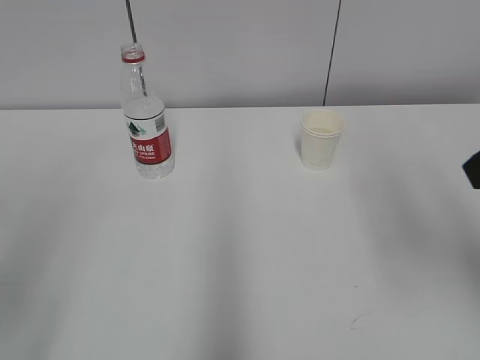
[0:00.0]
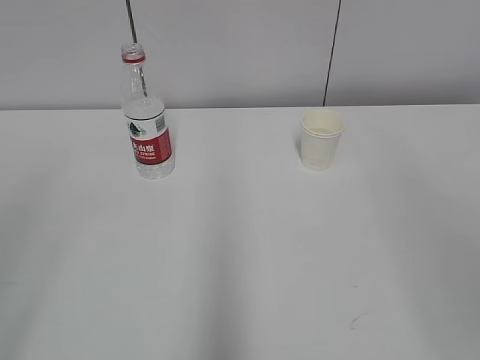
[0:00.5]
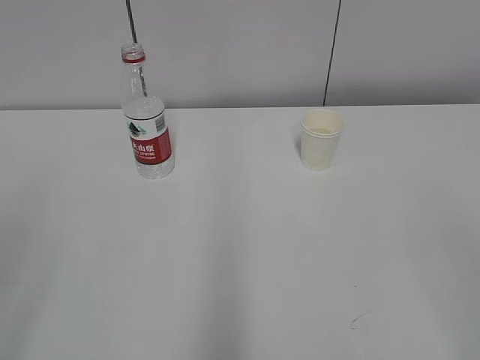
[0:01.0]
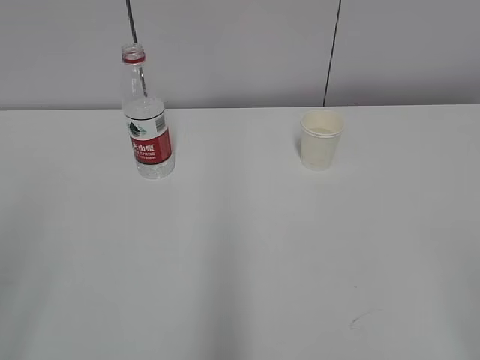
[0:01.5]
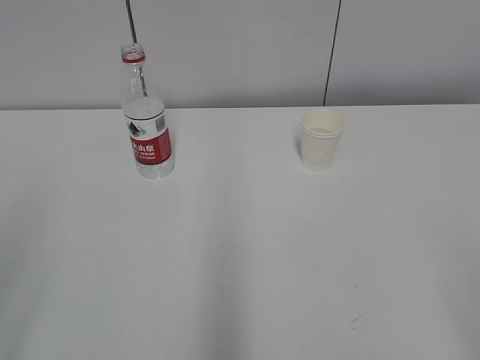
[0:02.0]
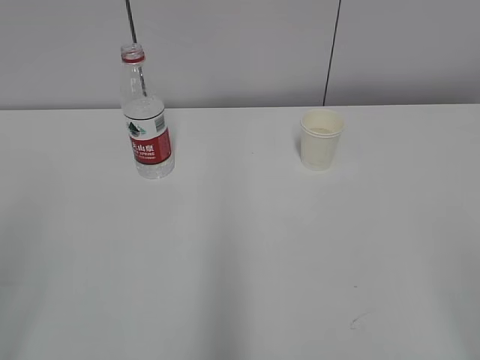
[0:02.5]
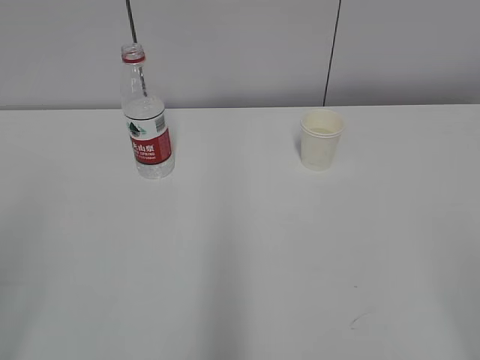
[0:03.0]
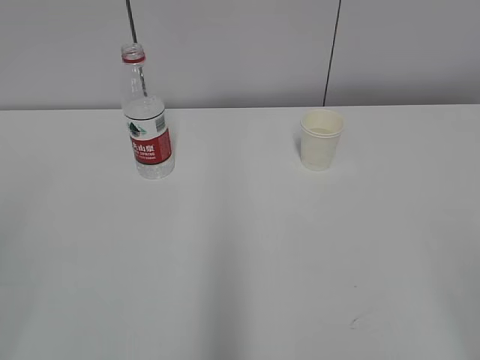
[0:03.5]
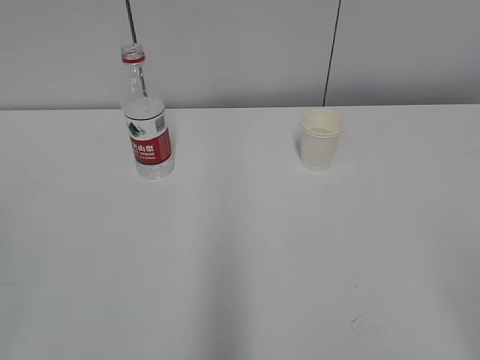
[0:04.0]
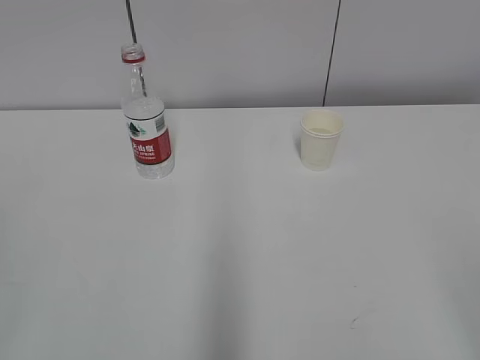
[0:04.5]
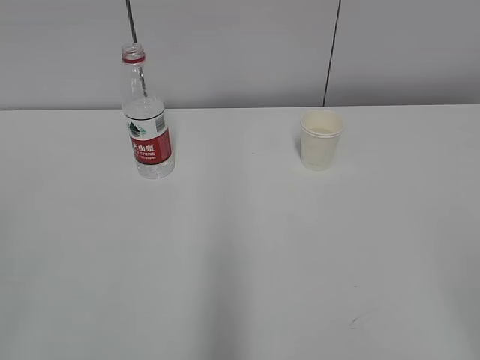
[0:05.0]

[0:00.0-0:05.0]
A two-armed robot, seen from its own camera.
0:00.0 to 0:02.5: The right gripper travels backward and downward by roughly 20 cm.

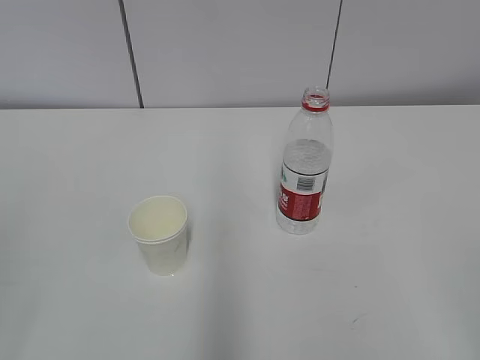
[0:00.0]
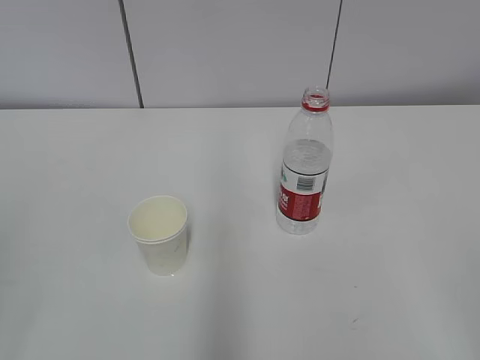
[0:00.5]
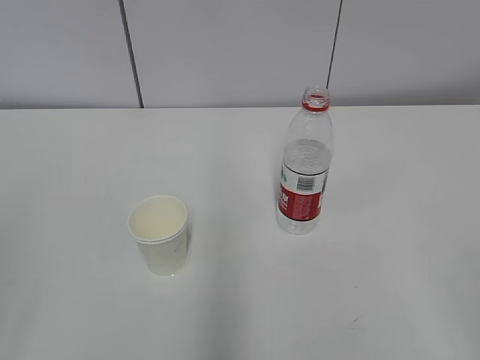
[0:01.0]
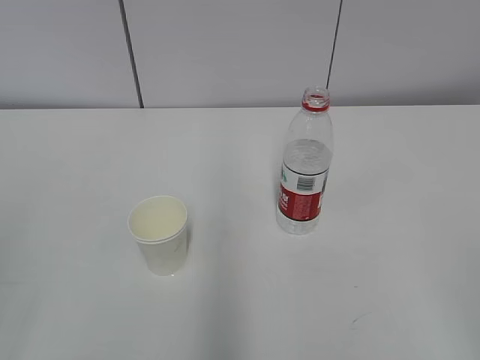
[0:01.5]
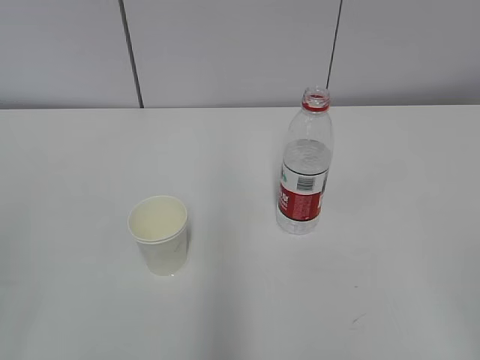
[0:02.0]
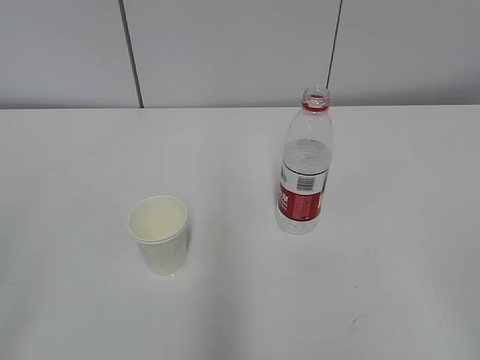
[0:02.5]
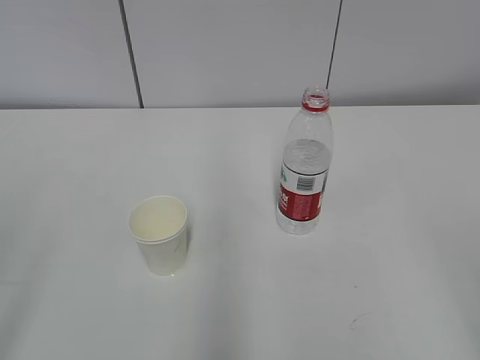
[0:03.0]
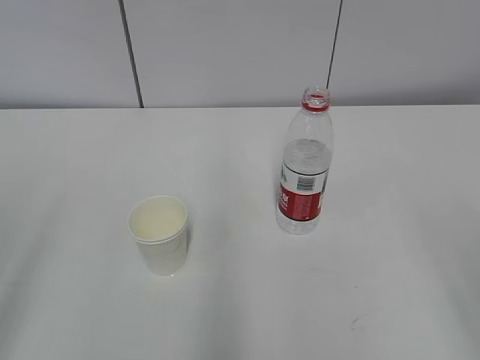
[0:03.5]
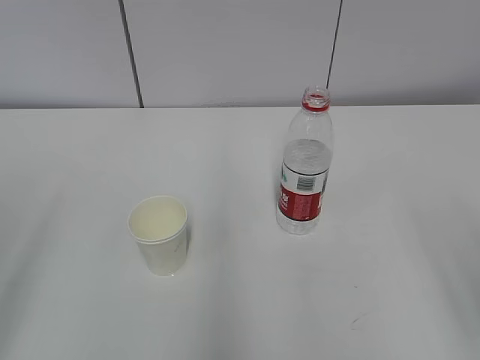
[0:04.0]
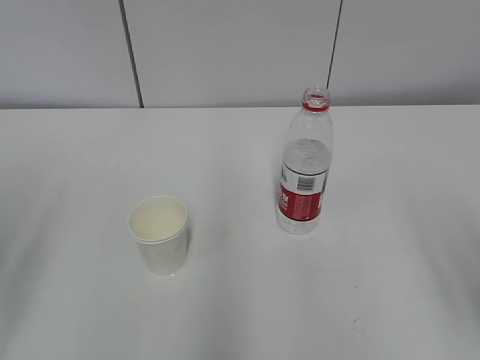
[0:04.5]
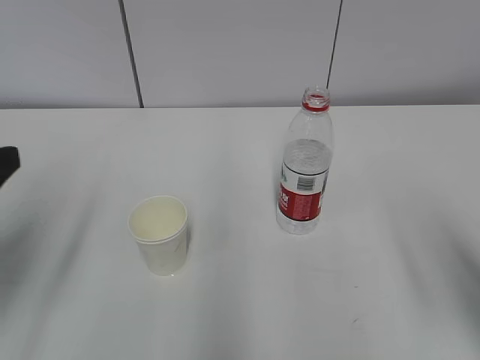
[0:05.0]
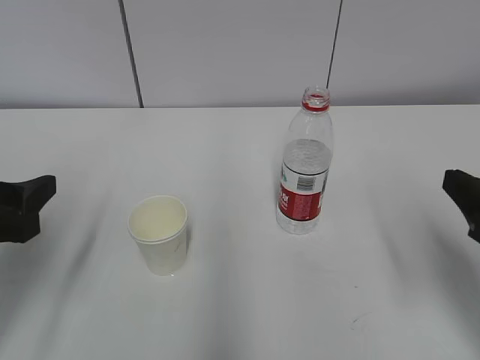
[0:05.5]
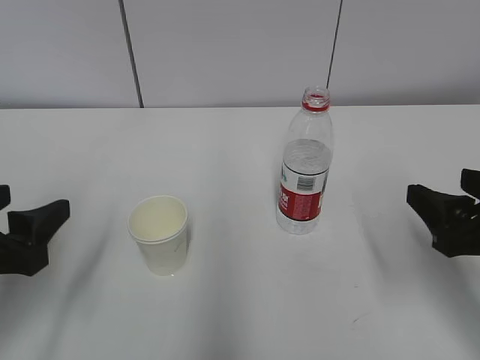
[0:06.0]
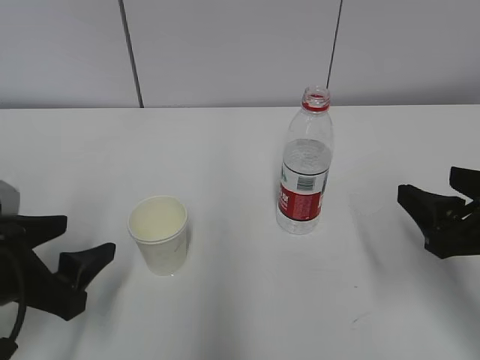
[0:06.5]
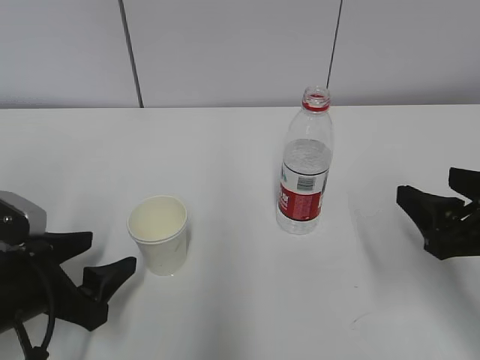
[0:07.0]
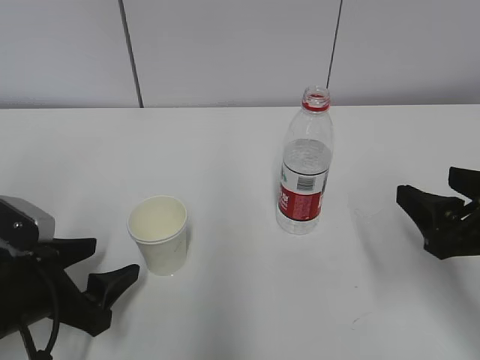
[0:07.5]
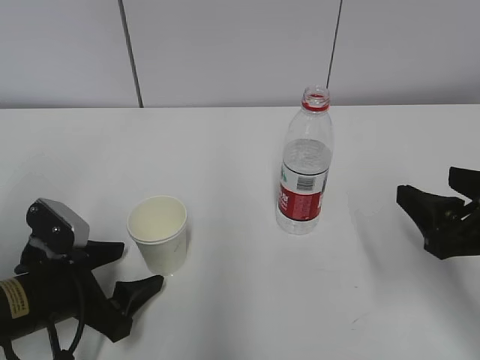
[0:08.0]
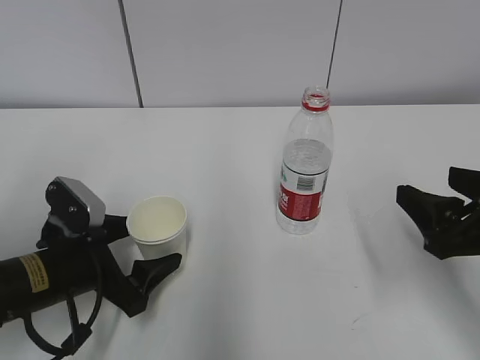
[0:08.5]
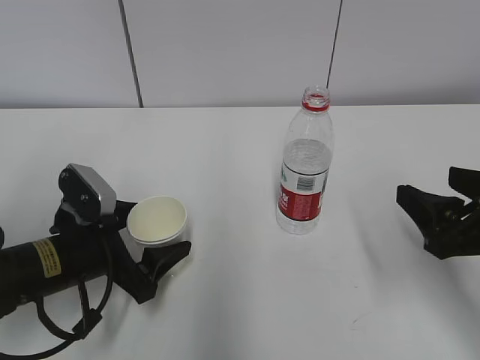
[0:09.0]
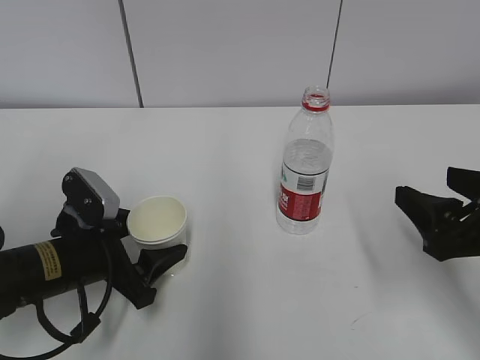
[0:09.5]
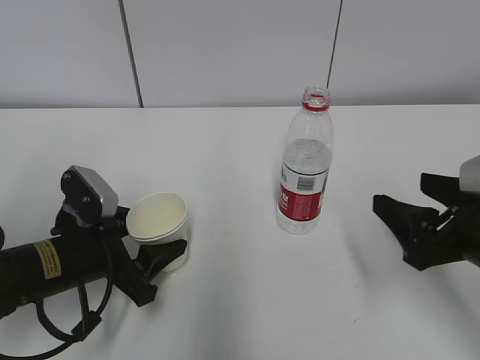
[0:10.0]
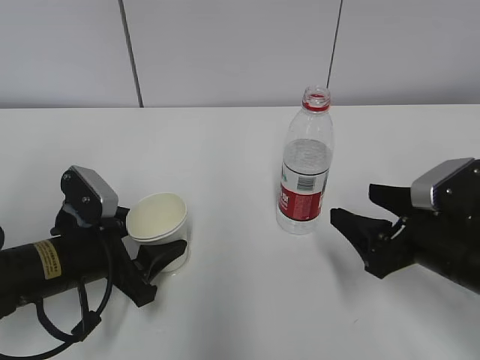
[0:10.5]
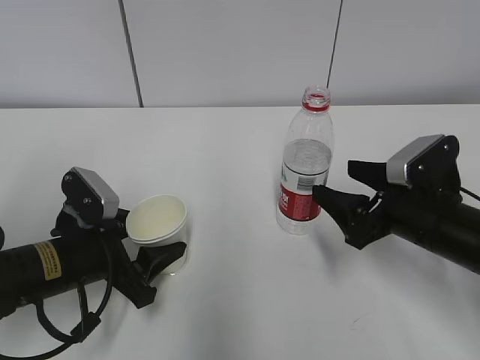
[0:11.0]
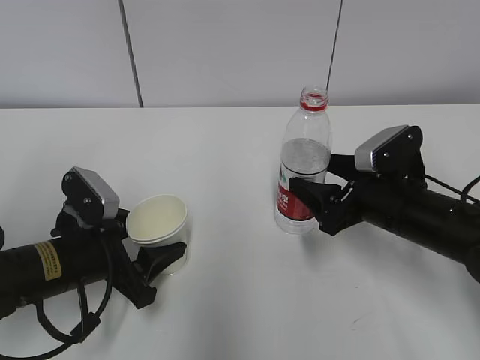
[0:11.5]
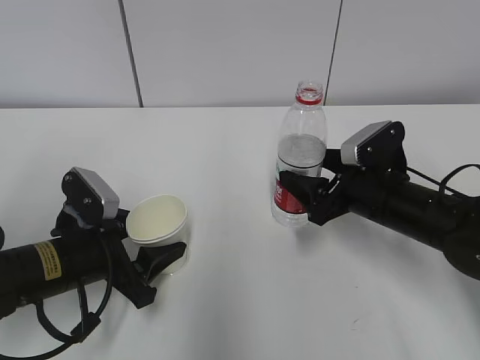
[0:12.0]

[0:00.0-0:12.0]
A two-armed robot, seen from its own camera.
Step, 0:00.0 to 0:07.5: Grab the paper cup with the left hand.
Step, 0:08.0 to 0:10.5: Grab the water bottle with the right hand.
0:04.0 to 0:06.0: The left gripper moves forward, downward and to the right, about 15 cm; the right gripper is displaced forward and downward by approximately 15 cm.
0:06.0 to 0:08.0: The left gripper moves downward, roughly 10 cm.
0:08.0 to 0:10.0: The grippers move only a little.
0:10.0 to 0:12.0: The right gripper moves forward, downward and to the left, about 15 cm.

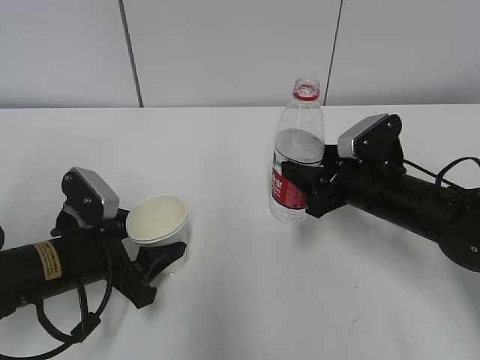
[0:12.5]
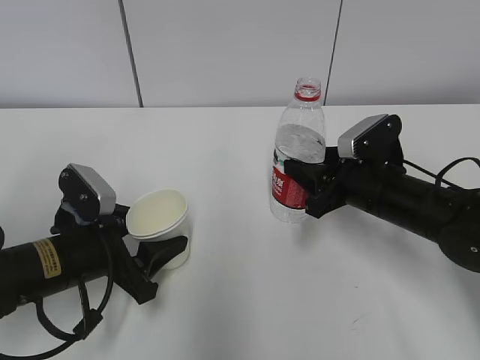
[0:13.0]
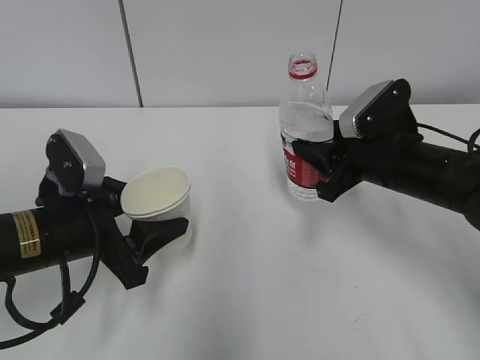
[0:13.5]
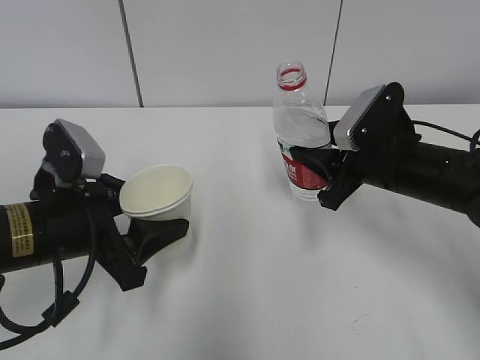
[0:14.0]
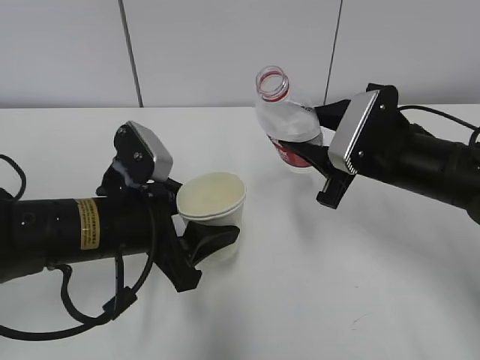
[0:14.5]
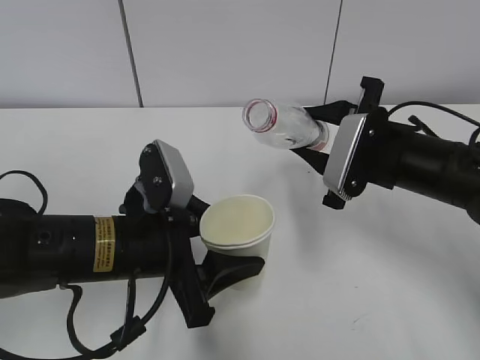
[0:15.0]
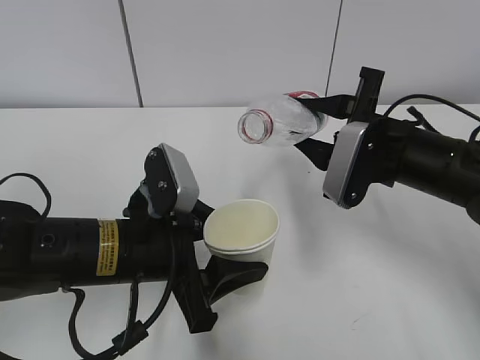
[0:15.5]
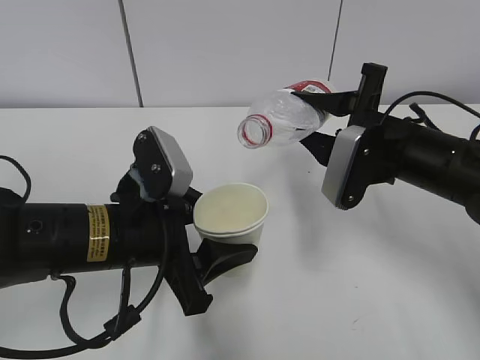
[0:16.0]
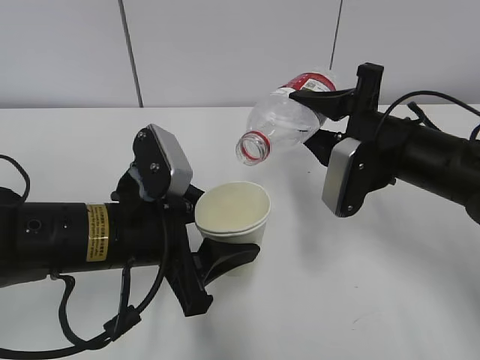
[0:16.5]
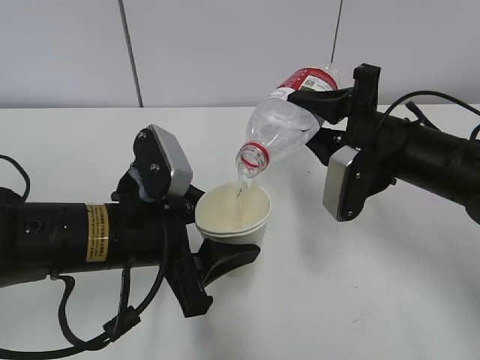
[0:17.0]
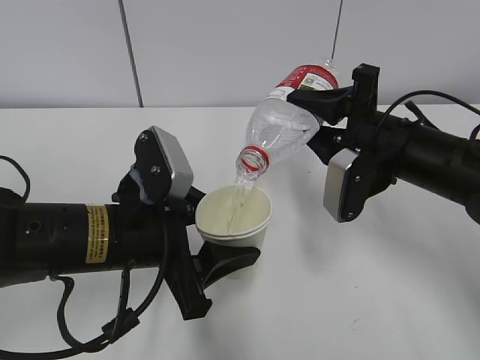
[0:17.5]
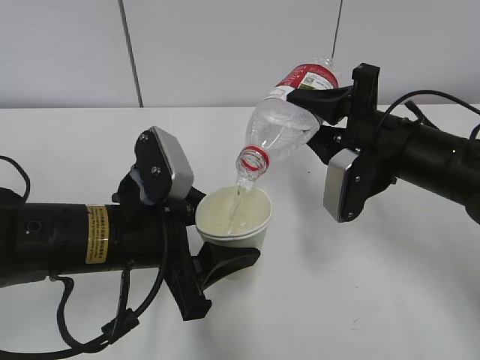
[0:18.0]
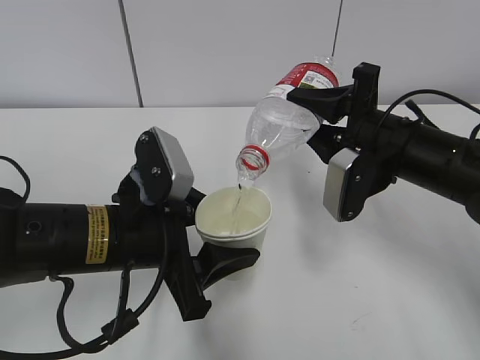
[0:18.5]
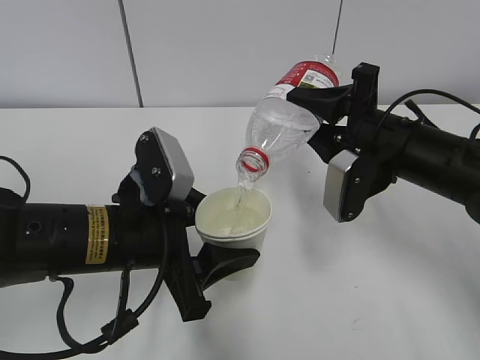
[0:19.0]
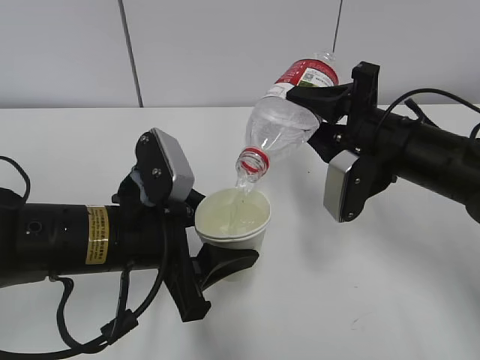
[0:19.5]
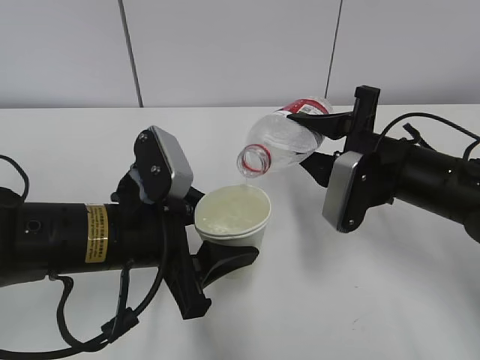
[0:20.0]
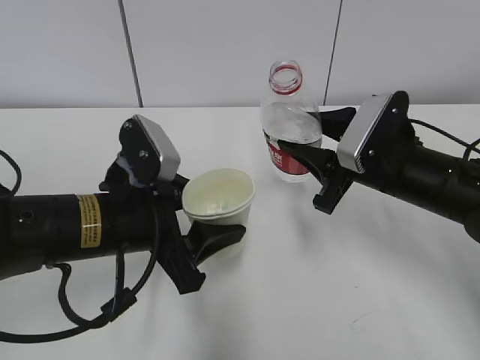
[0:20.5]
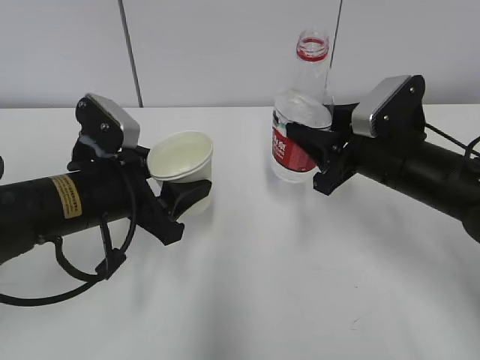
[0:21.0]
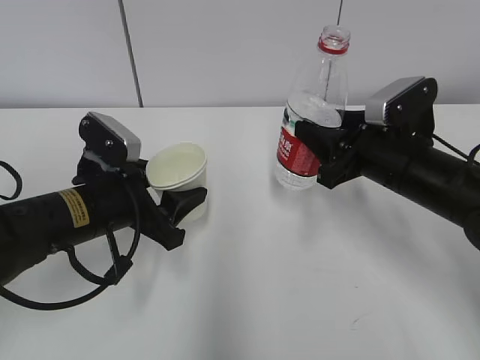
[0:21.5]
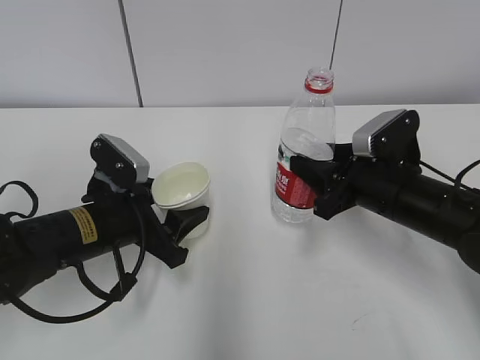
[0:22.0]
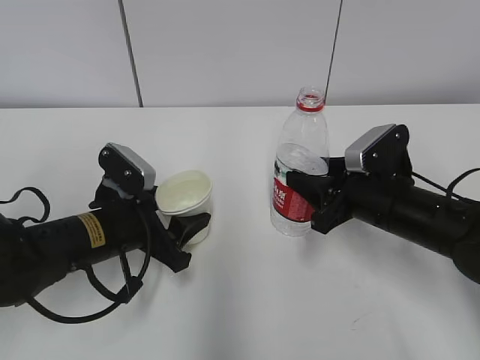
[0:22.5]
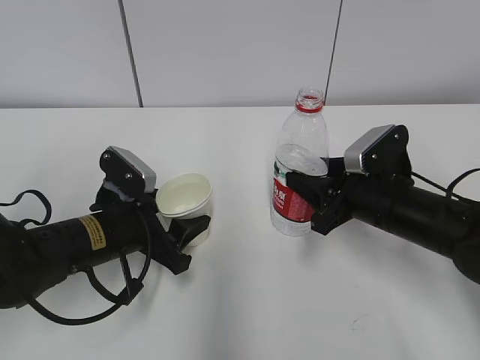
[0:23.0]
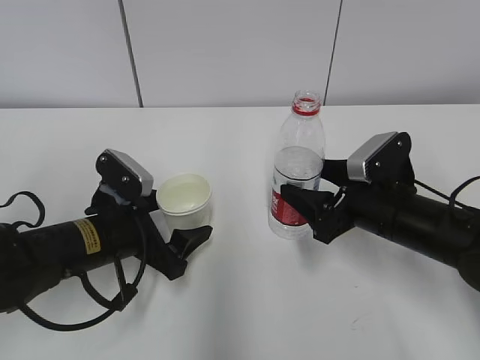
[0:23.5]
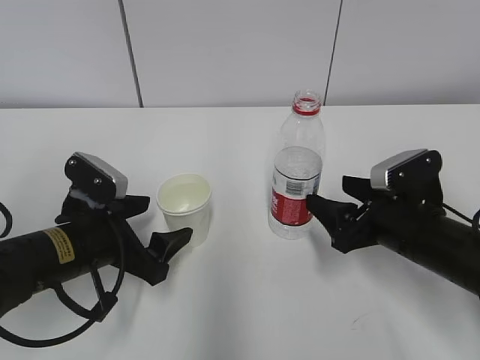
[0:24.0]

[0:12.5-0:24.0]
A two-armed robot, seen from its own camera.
Step, 0:14.0 to 0:16.5: Fill water with the left hand.
Step, 0:14.0 to 0:16.5: Pour water with the right hand.
Step, 0:17.5 to 0:19.5: Place the paper cup with the left hand.
0:12.5 to 0:14.5: The right gripper shifts roughly 5 cm upward, and closes its fingers. The left gripper moves upward and to the right, some 10 cm.
0:16.5 to 0:20.0: The grippers stay close to where they were, moving slightly.
0:20.0 to 0:22.0: The left gripper is displaced forward and downward by some 10 cm.
0:22.0 to 0:24.0: The left gripper opens, while the right gripper opens up.
